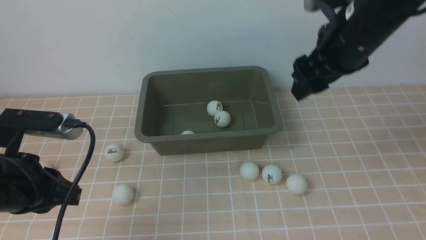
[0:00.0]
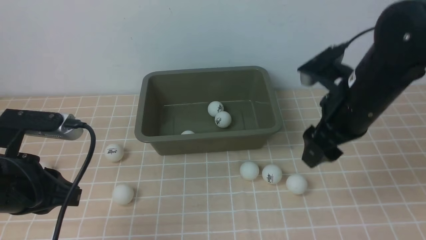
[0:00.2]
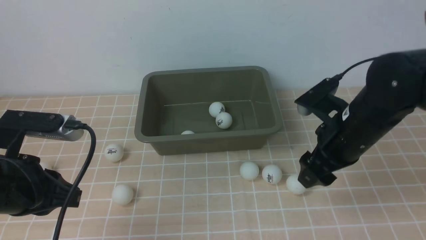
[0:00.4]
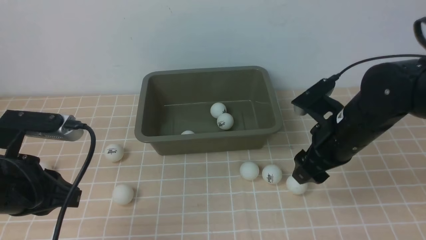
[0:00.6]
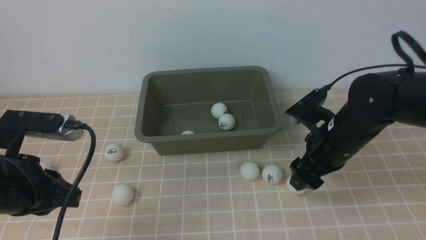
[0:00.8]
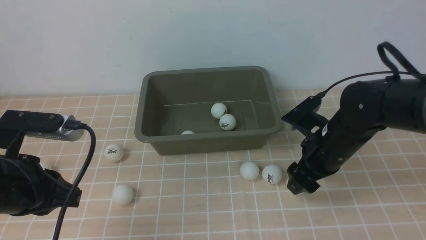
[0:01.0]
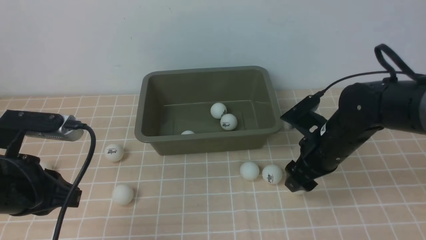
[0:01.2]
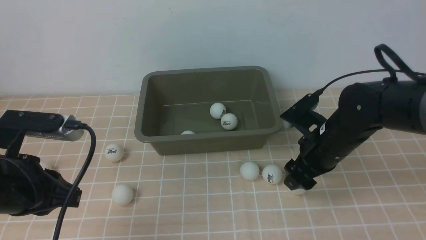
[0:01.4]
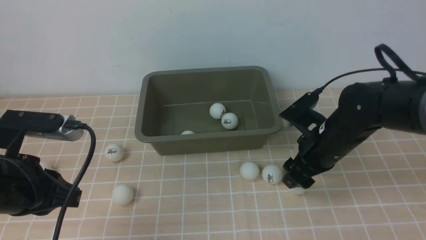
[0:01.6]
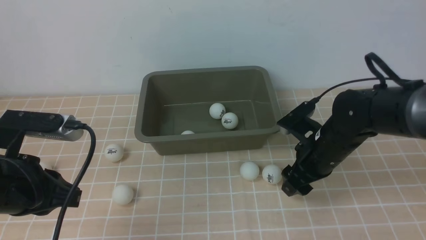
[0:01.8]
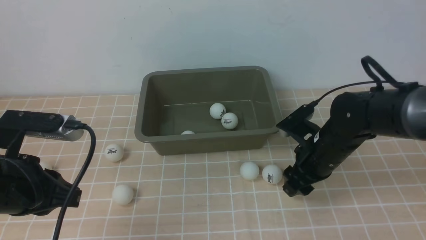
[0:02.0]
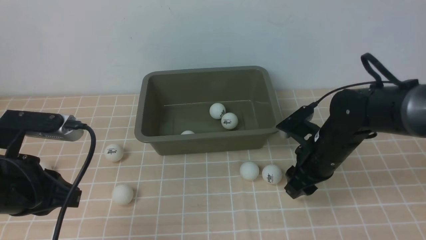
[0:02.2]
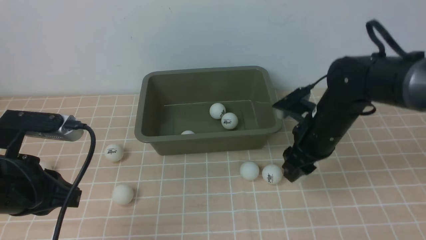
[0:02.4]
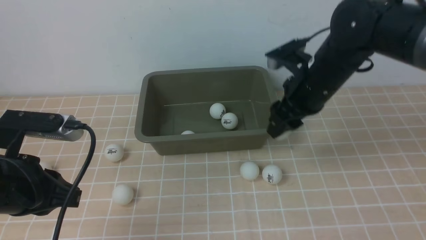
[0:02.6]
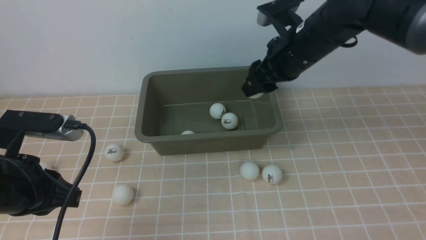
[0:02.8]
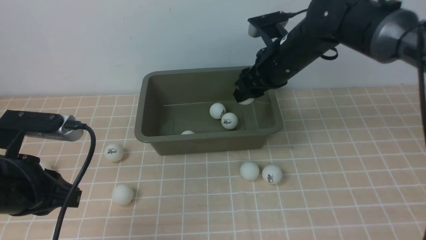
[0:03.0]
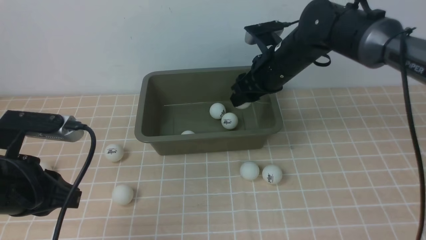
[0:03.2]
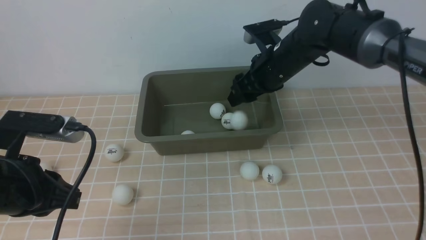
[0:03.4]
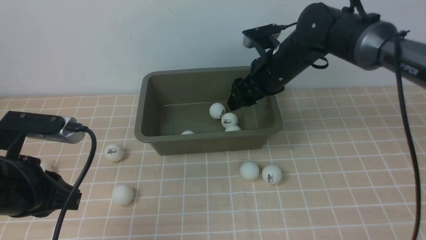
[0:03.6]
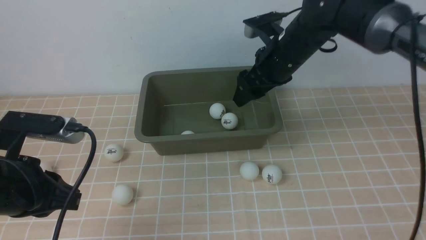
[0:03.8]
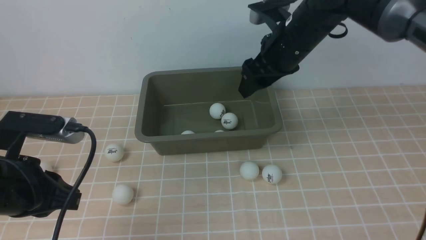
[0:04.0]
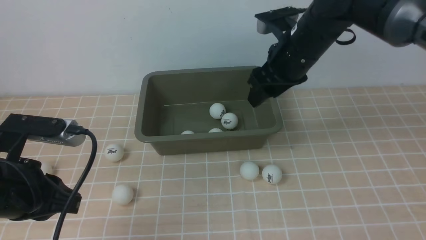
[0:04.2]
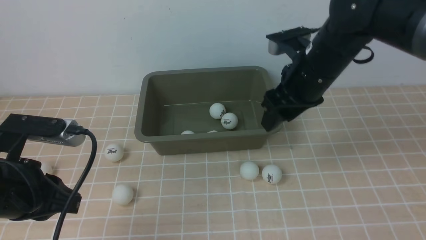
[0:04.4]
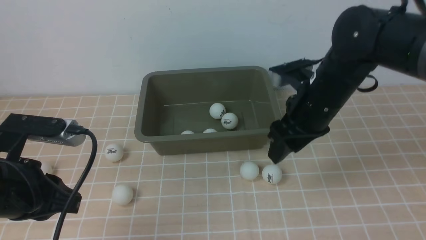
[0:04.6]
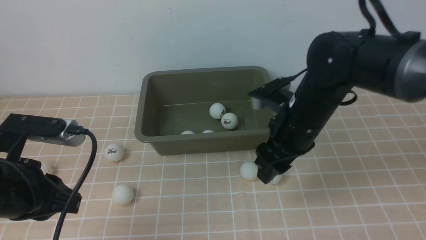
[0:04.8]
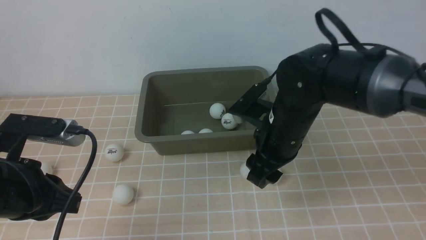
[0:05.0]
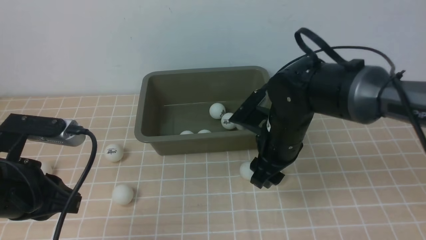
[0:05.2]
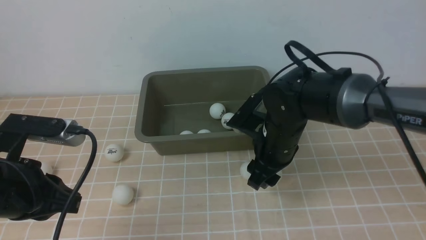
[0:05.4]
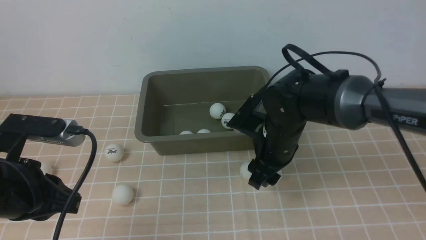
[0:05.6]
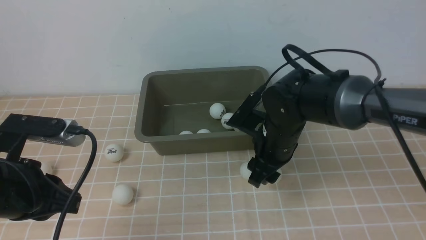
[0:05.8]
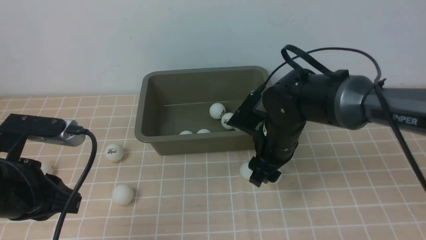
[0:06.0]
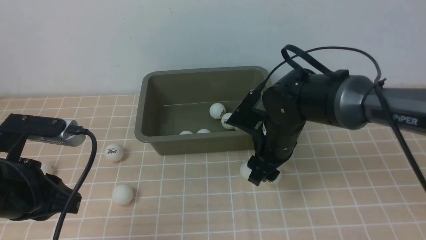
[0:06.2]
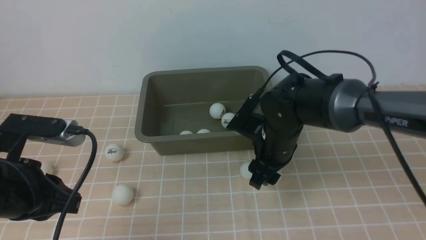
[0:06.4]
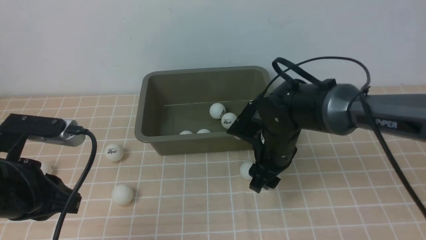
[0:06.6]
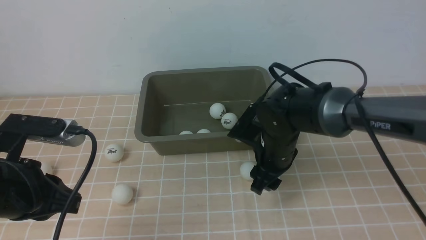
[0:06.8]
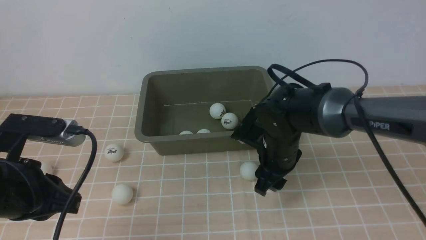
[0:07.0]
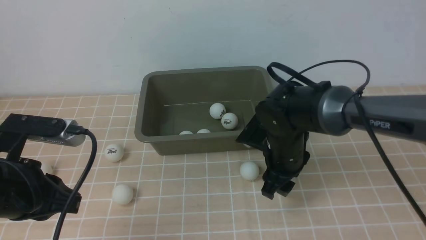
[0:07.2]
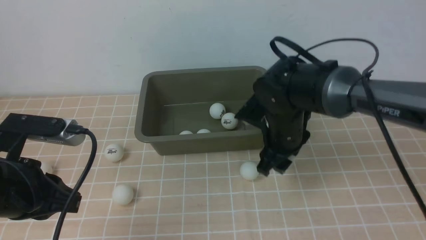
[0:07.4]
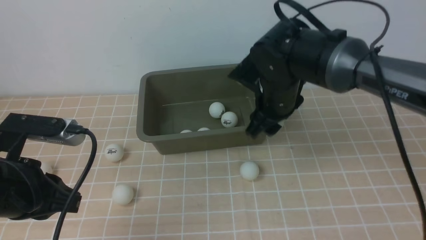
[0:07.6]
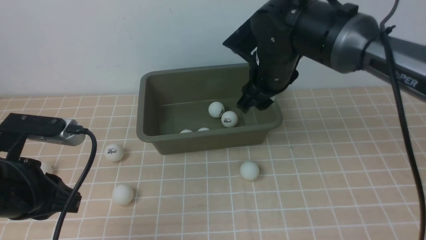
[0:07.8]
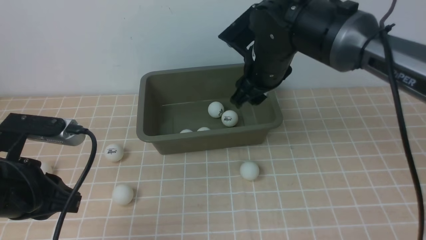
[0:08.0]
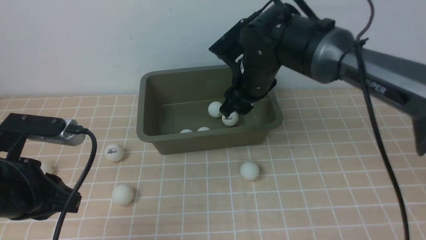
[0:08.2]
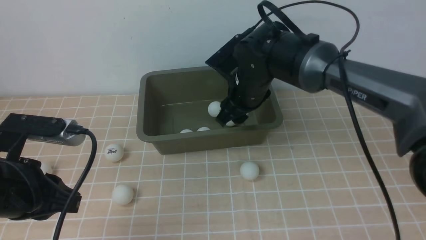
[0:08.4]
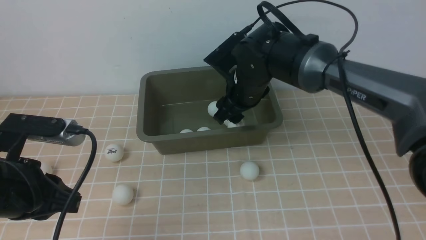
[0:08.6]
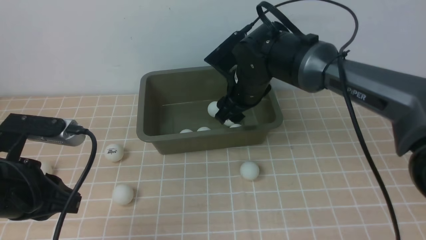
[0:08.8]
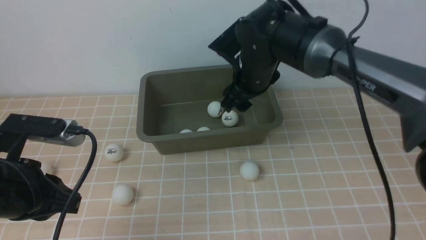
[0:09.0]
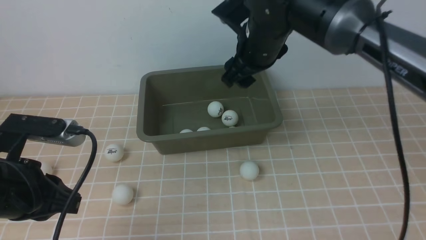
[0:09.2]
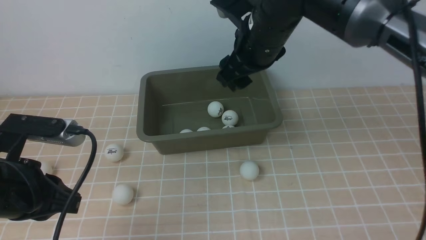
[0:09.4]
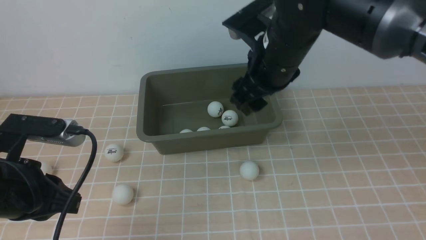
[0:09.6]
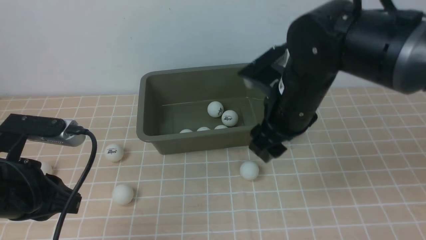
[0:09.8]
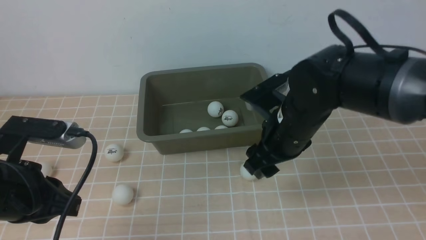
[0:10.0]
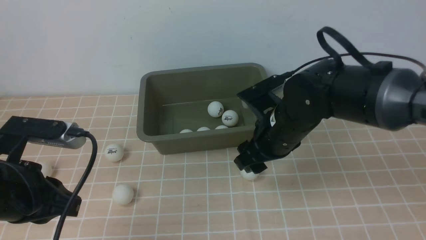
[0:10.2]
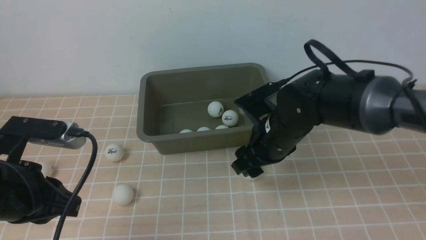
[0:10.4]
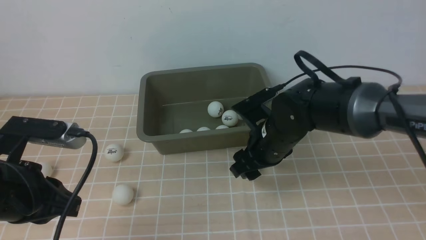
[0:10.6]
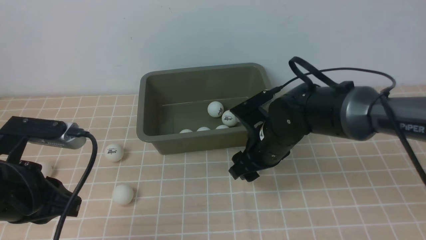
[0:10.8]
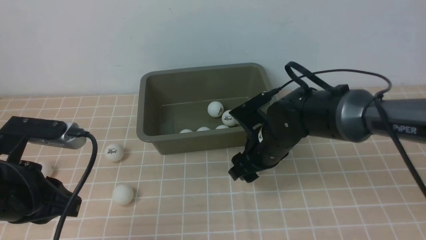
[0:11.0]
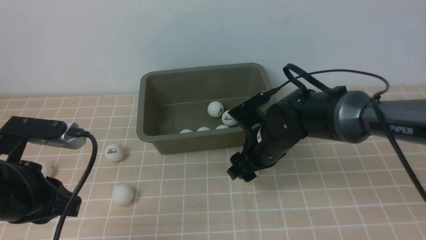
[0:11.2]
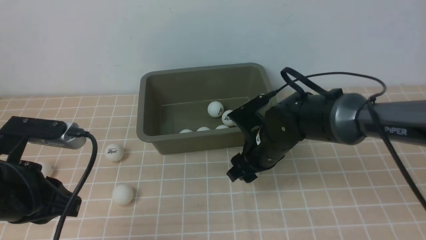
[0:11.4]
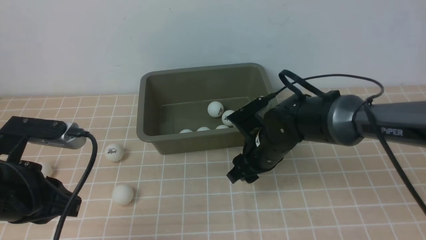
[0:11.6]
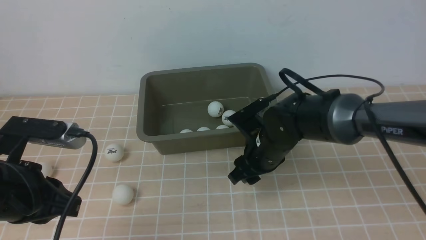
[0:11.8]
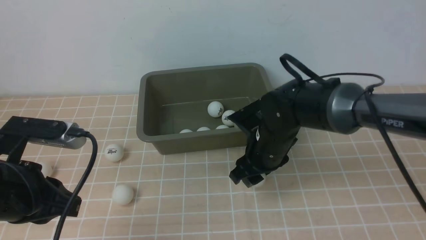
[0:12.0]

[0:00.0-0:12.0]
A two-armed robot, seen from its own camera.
Step, 0:00.0 to 0:02.4: use the right arm to clamp the table tennis ball closest to it.
Step, 0:02.6 to 0:03.8: use the right arm to put the table tennis ball into the box.
Step, 0:04.0 to 0:07.6: use the right arm to clamp the table tennis ball closest to it.
Step, 0:08.0 to 0:08.8: use the right arm to put the table tennis ball into the box.
0:00.0 to 0:01.6: The right gripper travels downward by roughly 15 cm.
0:01.6 to 0:03.0: The right gripper heads upward, forward and to the left, covering some 15 cm.
0:03.0 to 0:04.4: The grippers move only a little.
0:04.4 to 0:06.0: The right gripper is displaced downward by roughly 10 cm.
0:06.0 to 0:07.6: The right gripper ends up approximately 5 cm from where it was.
0:07.6 to 0:09.0: The right gripper shifts by some 5 cm.
0:09.0 to 0:10.4: The right gripper heads backward and downward, covering some 10 cm.
0:10.4 to 0:12.0: The grippers make only small movements.

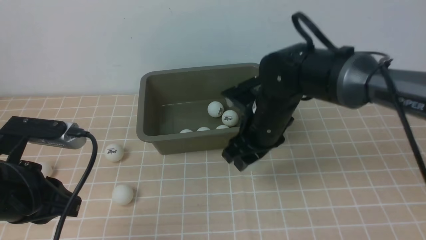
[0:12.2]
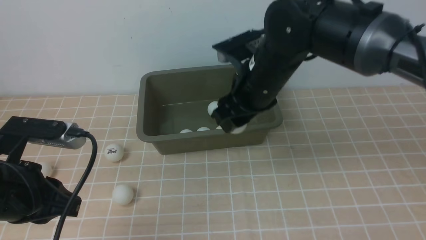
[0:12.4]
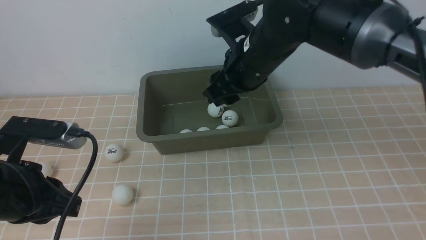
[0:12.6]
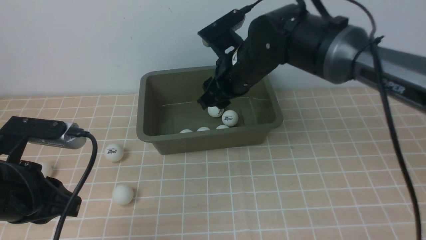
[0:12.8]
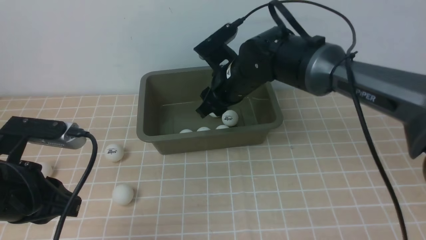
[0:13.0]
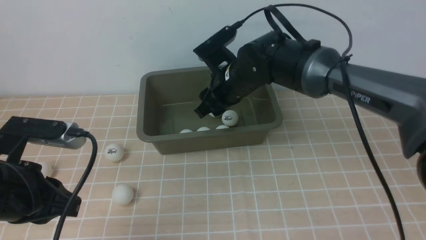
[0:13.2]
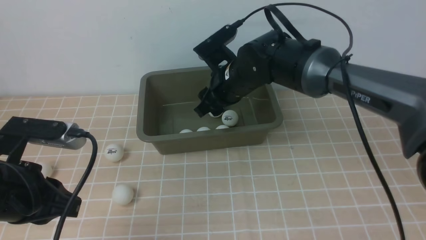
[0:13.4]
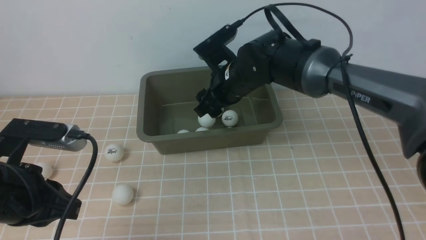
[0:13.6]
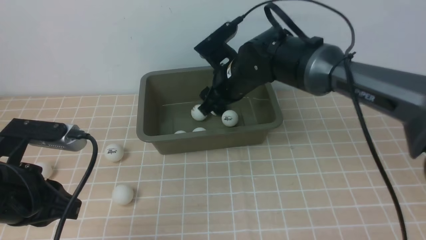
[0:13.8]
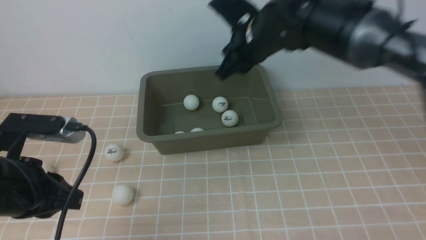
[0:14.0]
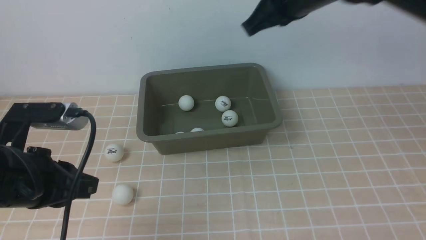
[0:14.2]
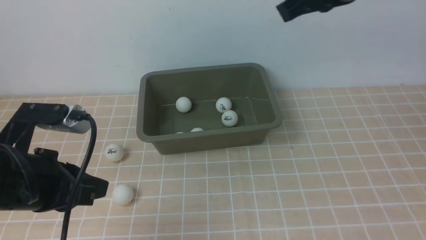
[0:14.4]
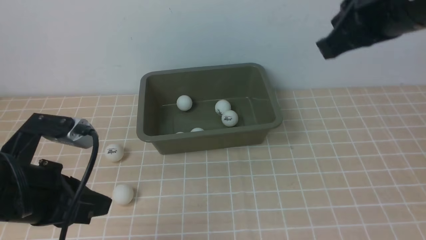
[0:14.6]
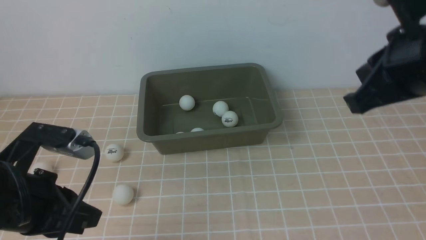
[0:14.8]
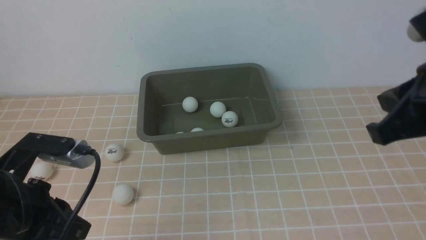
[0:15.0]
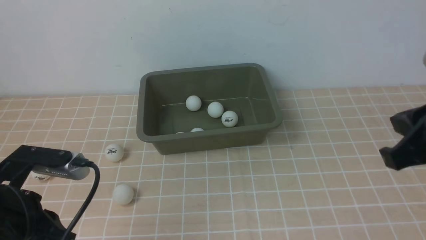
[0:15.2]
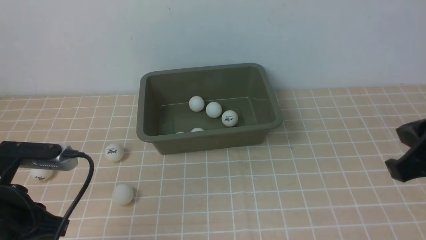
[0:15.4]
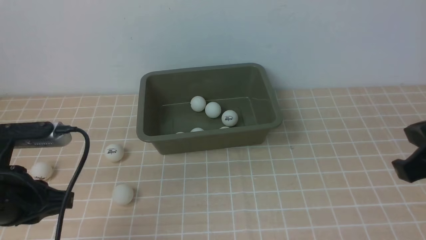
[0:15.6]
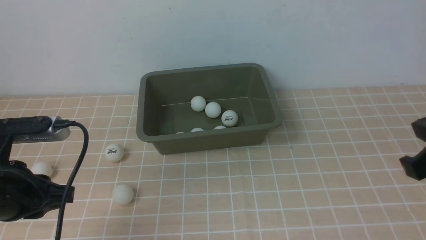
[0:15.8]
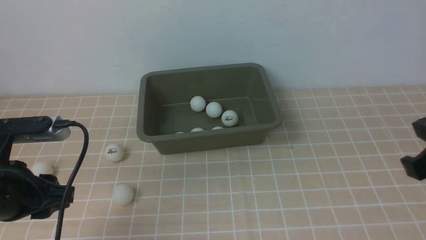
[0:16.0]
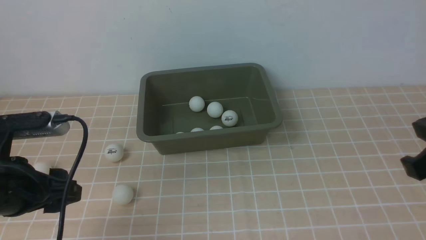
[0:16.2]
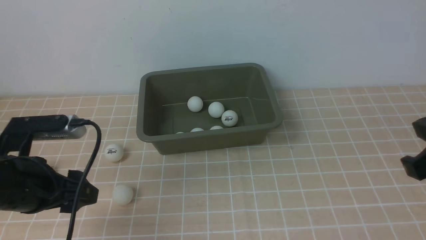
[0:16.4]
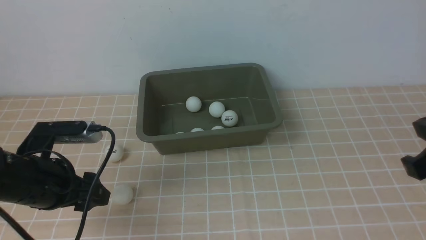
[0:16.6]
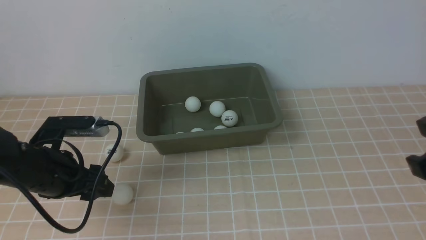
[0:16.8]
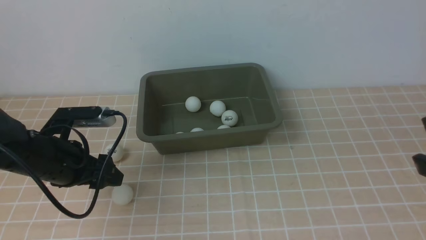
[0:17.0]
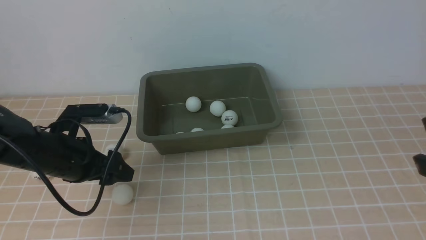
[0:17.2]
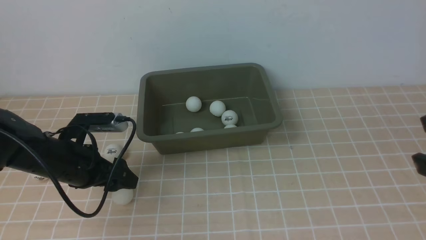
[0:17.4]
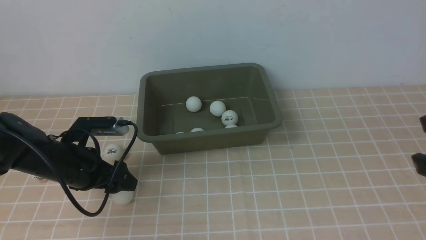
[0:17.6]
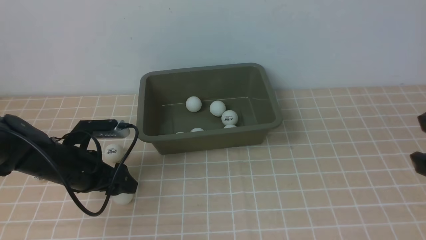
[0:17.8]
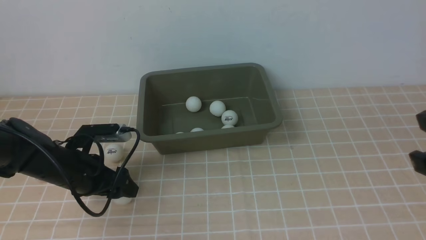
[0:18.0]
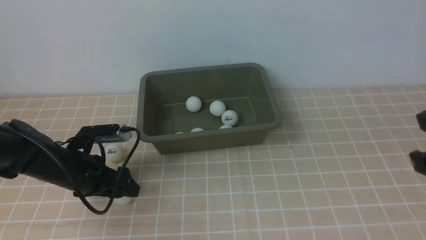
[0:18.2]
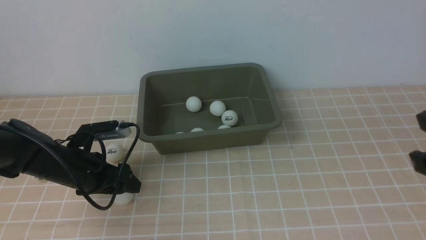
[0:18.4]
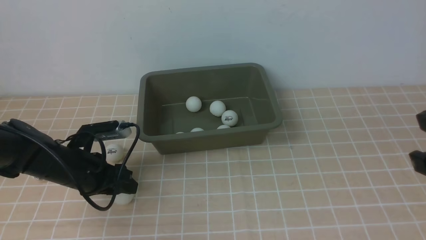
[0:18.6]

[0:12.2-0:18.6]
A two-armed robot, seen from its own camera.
Step, 0:12.4 to 0:13.4: use the right arm to put the table tennis ball into the box.
0:12.2 to 0:13.8: The right gripper goes roughly 5 cm forward.
0:13.8 to 0:15.4: The right gripper travels backward and to the right by some 30 cm, and closes its fingers.
0:15.4 to 0:17.0: The left gripper moves forward and downward, approximately 10 cm, and opens.
0:17.0 to 0:18.6: The left gripper shifts roughly 5 cm downward.
